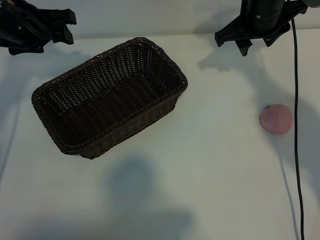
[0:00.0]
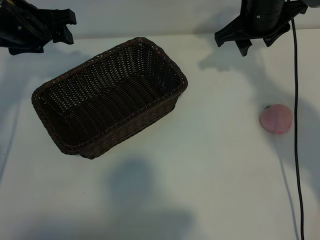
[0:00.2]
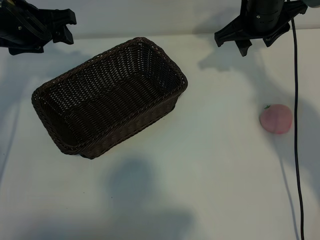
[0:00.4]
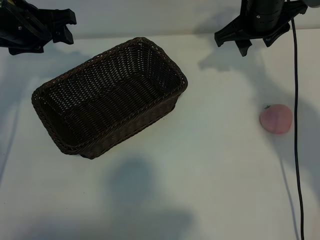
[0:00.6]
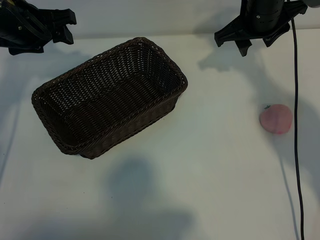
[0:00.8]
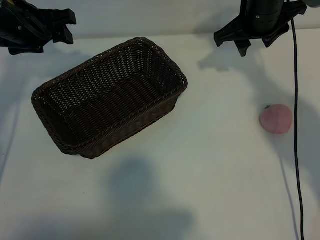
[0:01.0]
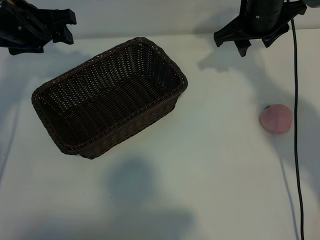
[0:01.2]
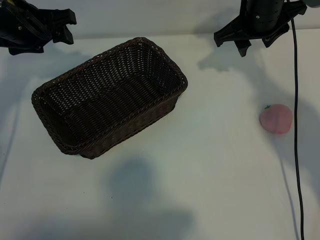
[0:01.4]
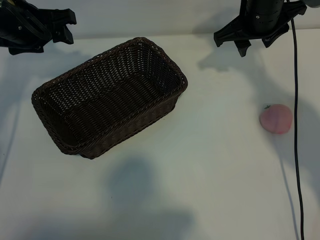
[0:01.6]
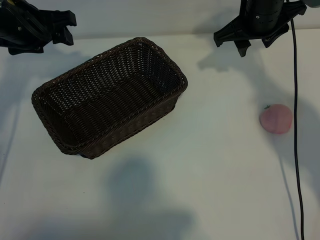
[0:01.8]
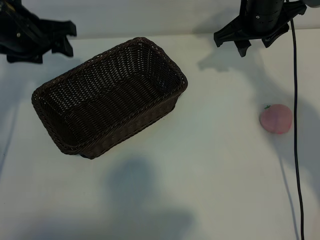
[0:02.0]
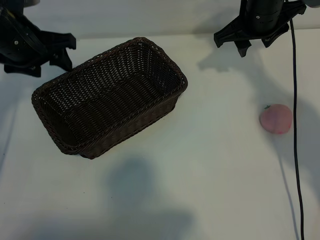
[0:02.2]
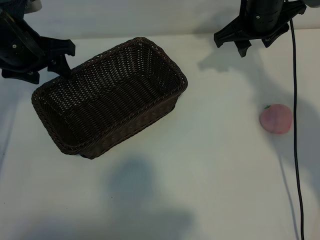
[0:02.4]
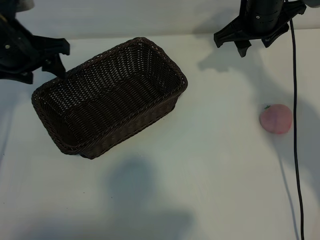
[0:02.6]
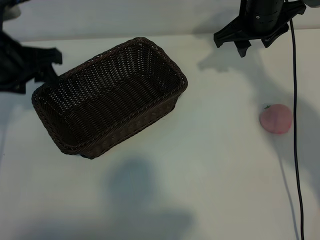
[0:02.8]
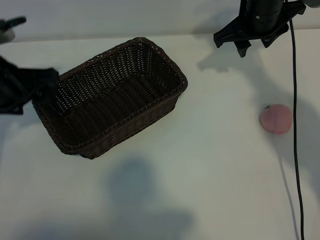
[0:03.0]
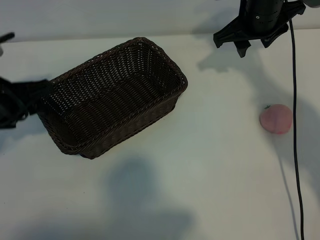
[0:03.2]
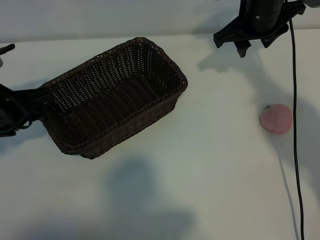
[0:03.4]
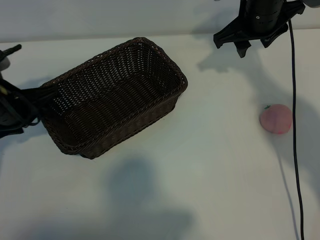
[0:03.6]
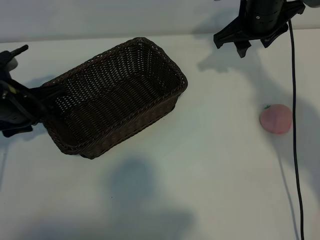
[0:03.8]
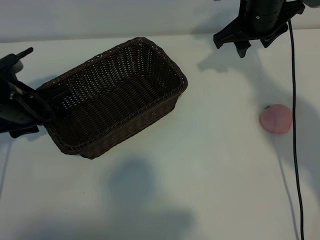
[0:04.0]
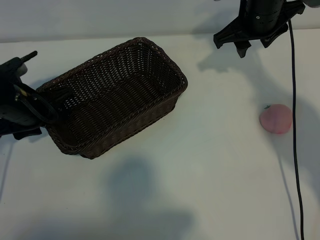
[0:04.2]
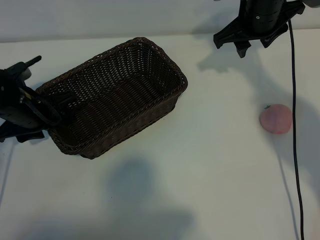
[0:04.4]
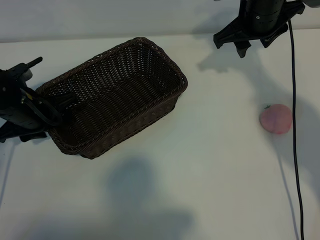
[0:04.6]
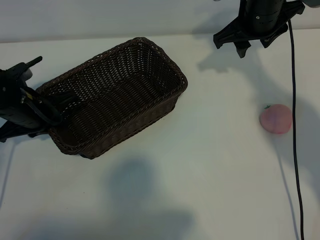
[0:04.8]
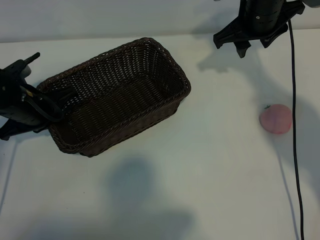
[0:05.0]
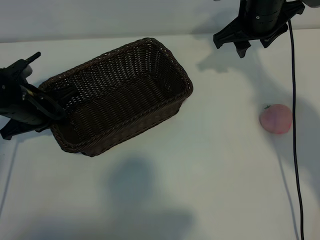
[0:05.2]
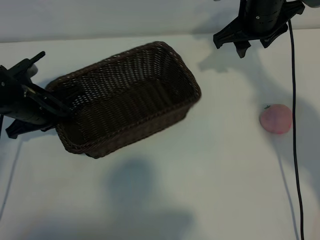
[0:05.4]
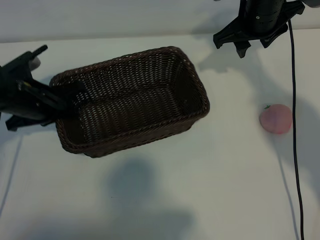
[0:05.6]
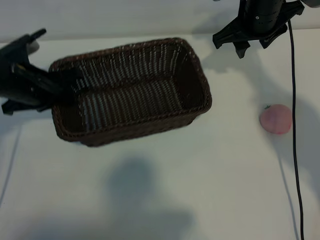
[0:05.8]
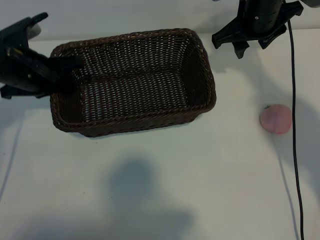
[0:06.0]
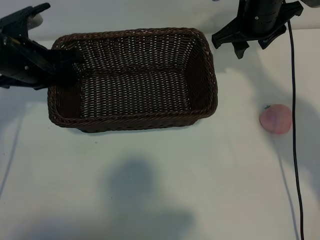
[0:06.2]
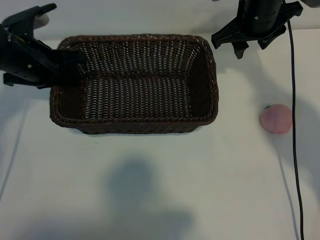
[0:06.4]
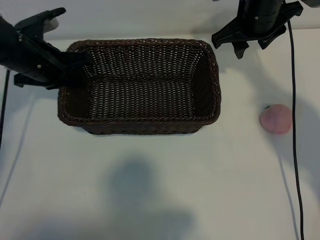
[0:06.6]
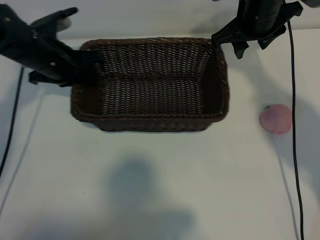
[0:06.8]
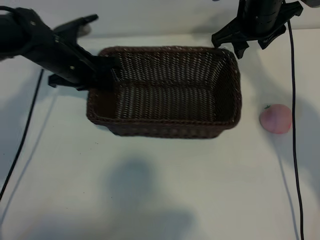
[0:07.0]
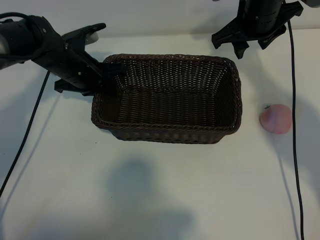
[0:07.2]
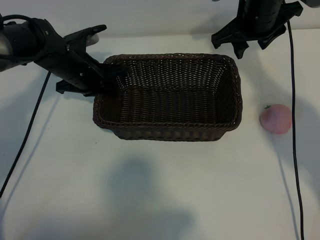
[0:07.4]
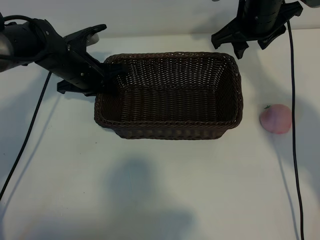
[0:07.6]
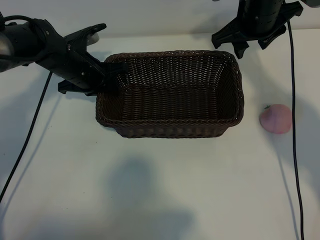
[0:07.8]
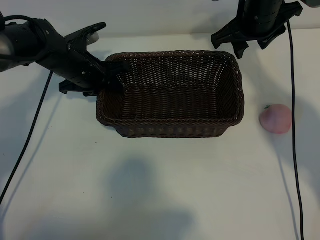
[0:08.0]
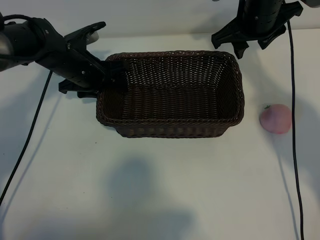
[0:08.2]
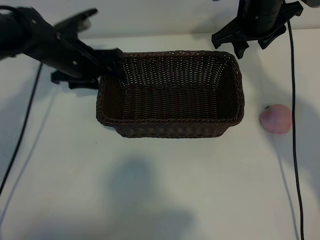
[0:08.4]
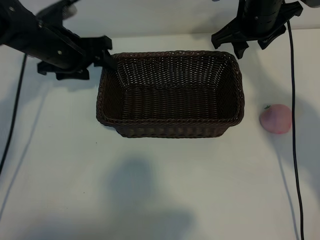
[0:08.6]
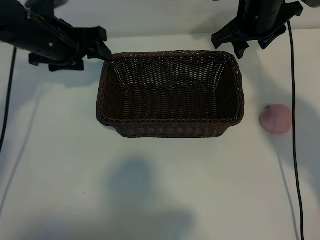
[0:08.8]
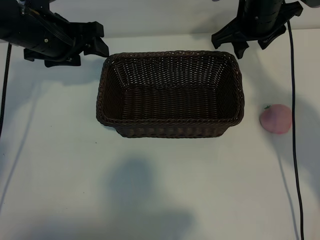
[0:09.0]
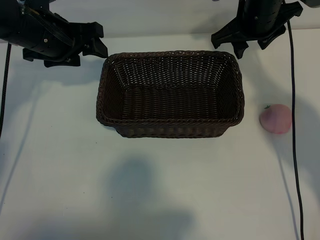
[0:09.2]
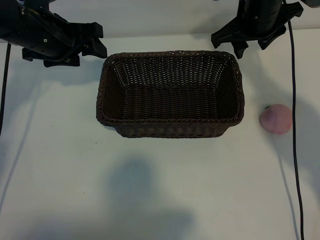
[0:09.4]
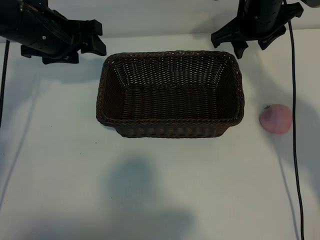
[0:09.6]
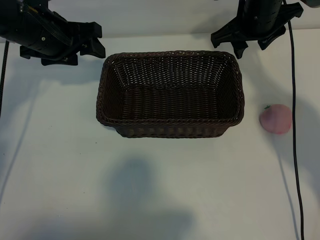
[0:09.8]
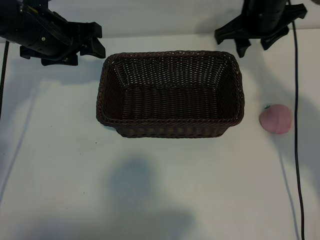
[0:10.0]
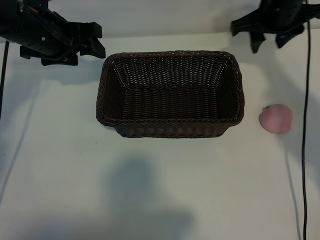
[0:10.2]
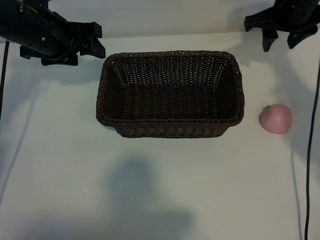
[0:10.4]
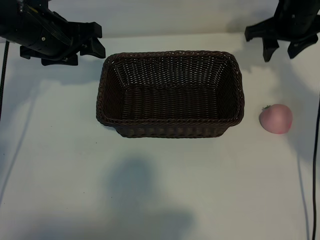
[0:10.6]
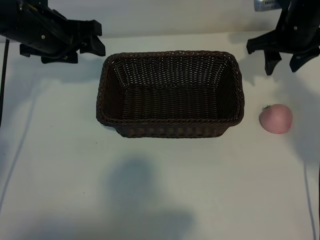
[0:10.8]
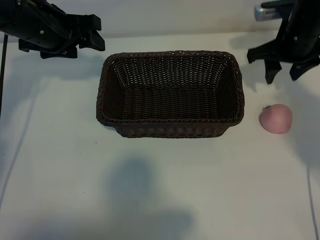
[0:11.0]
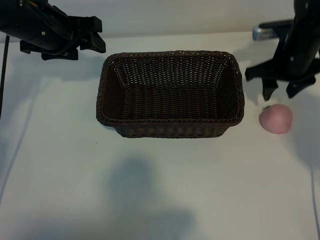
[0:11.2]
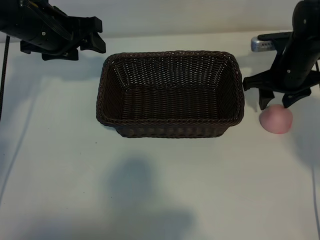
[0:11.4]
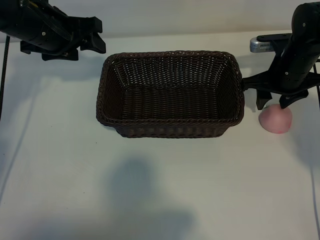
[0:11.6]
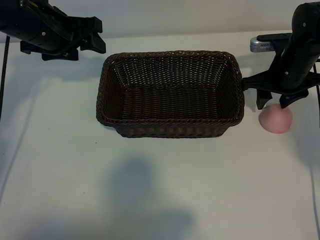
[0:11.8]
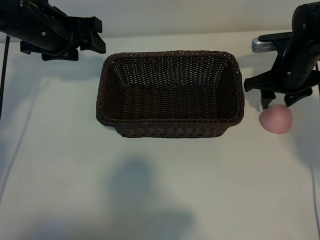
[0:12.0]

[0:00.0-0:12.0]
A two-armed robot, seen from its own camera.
Task of the whole recording: pick up the peach and put it into the basket.
Step, 0:01.8 to 0:05.0: Grasp the basket with left gripper.
Step, 0:05.4 to 0:07.8: Place the basket in the center of view with left gripper.

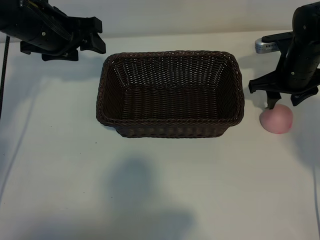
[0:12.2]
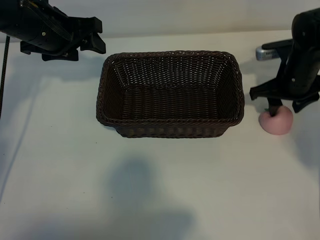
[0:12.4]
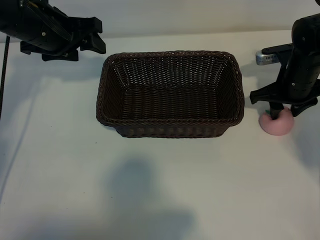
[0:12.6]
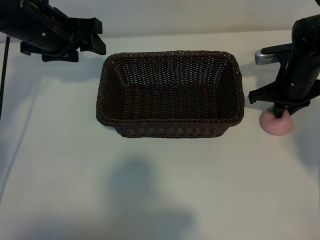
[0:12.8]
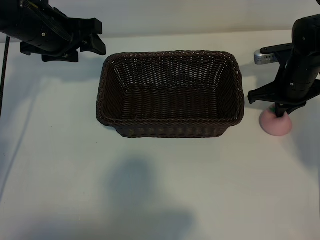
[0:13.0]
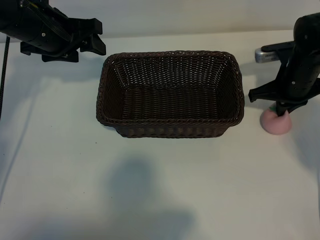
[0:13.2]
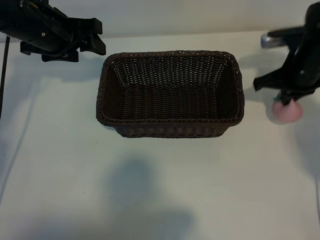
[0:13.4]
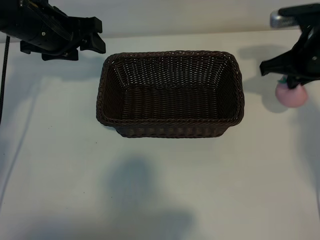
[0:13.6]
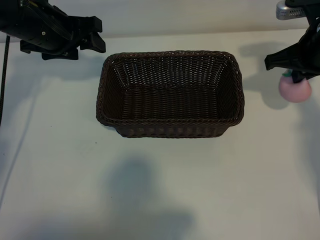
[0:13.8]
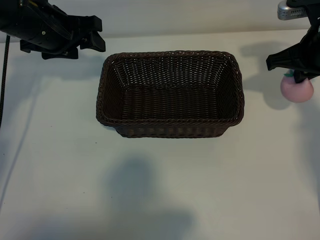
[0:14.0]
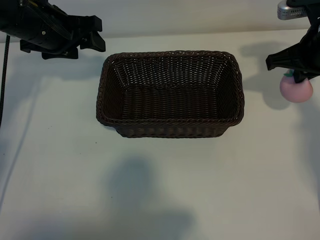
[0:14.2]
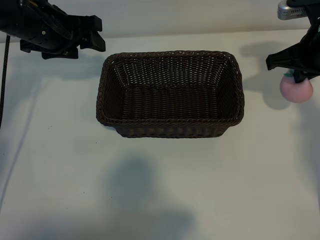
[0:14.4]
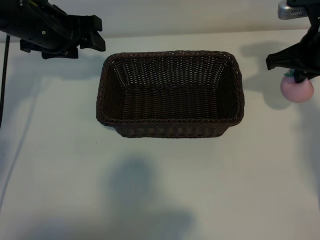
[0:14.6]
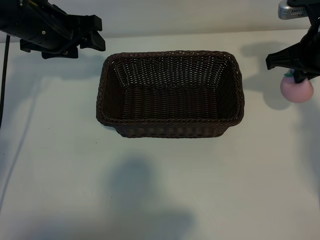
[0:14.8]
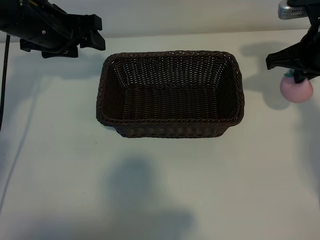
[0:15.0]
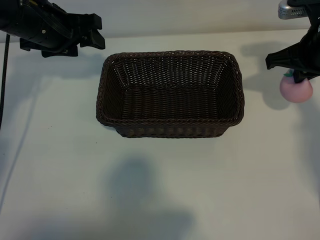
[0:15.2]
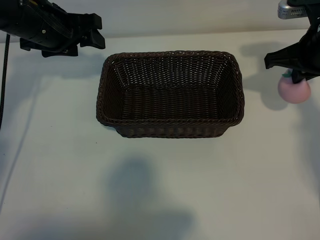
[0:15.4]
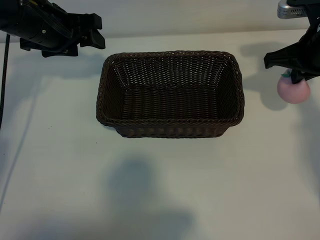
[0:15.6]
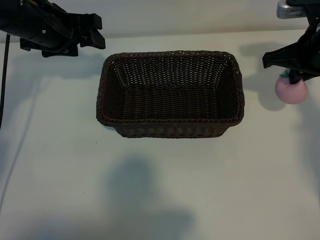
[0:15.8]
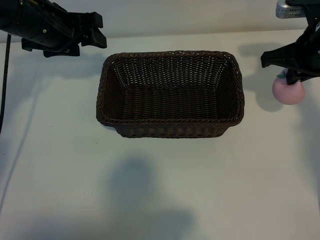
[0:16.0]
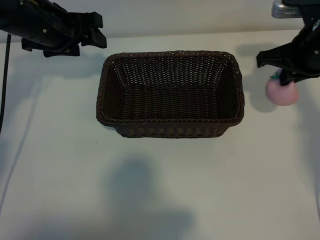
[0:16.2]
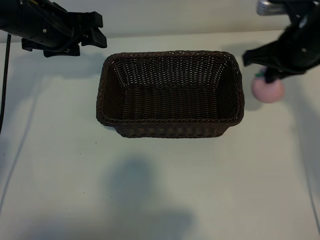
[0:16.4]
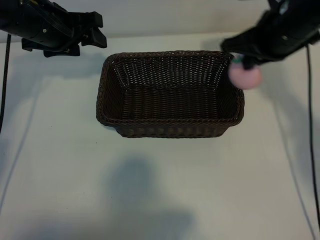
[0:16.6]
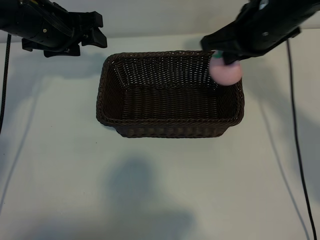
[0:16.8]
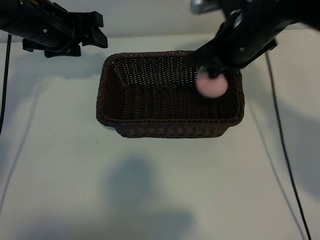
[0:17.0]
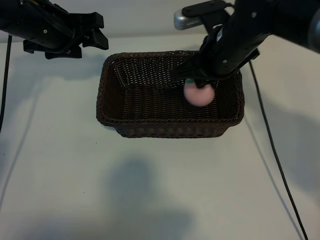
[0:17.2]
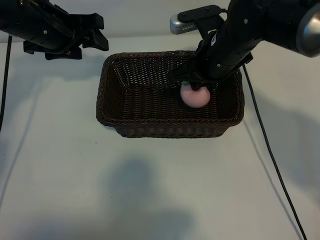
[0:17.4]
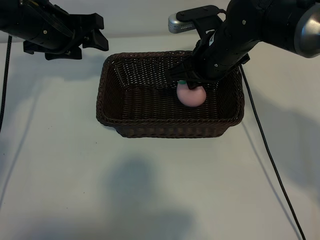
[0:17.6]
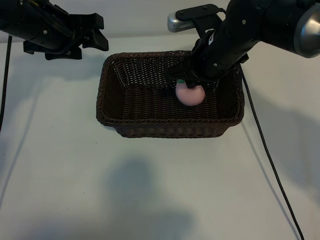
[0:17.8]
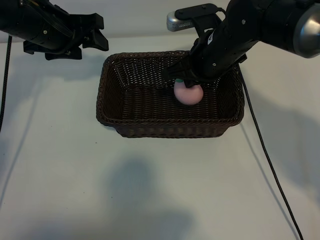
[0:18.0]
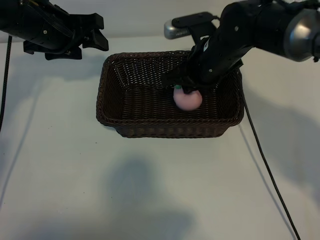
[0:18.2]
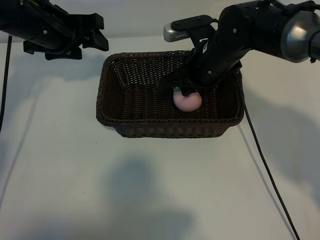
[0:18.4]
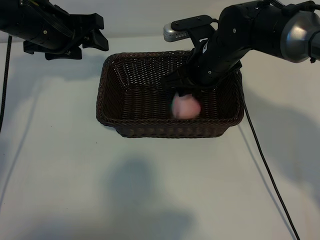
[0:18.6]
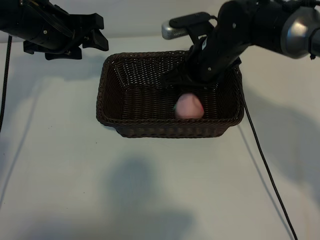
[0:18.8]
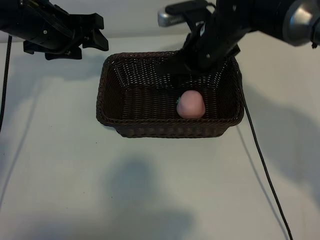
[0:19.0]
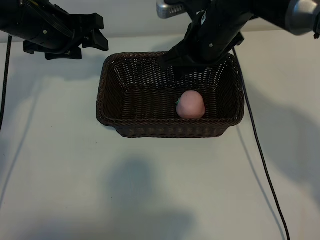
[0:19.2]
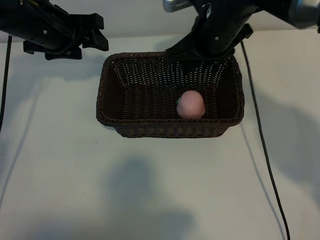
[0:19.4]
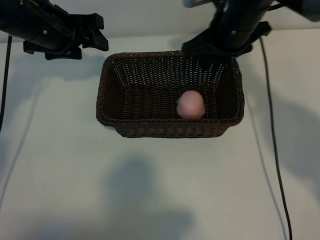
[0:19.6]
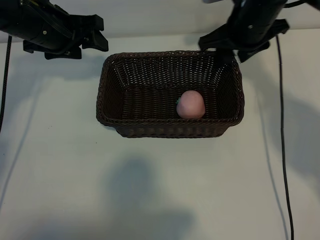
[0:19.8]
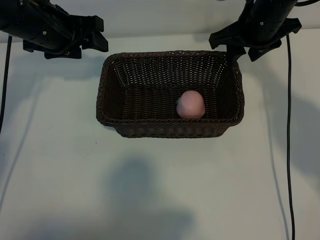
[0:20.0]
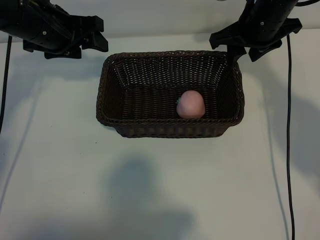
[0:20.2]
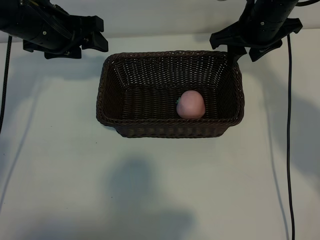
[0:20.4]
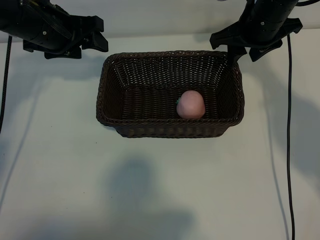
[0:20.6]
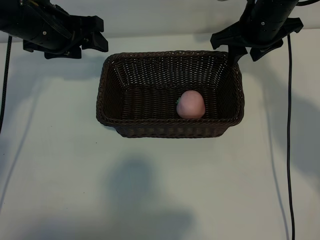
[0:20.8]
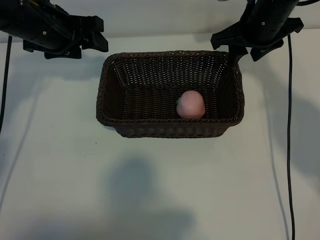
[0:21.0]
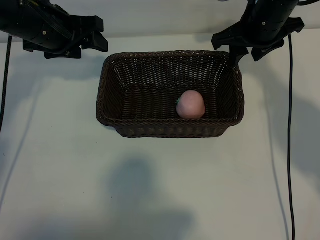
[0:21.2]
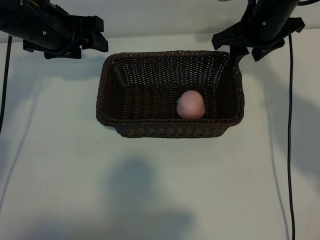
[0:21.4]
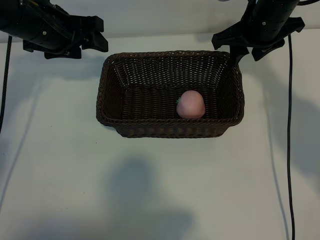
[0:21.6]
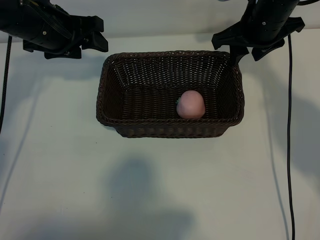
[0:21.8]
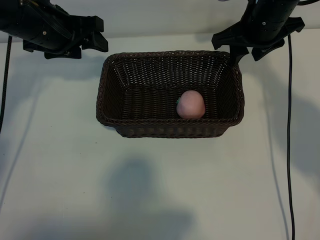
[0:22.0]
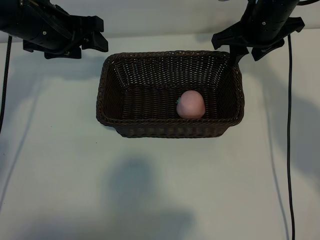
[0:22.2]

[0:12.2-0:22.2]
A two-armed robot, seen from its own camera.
Task of the whole recording: pick up the peach and put it into the basket.
Step, 0:13.4 to 0:18.8: Place the peach in the basket with right gripper.

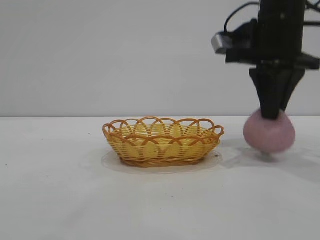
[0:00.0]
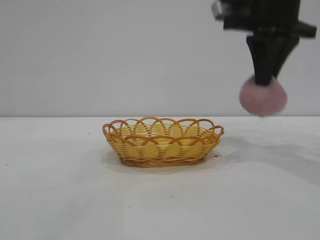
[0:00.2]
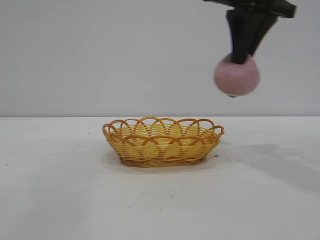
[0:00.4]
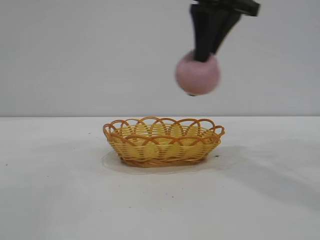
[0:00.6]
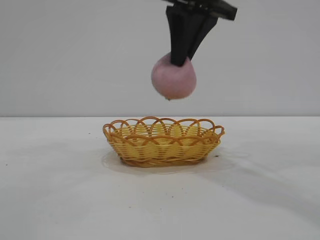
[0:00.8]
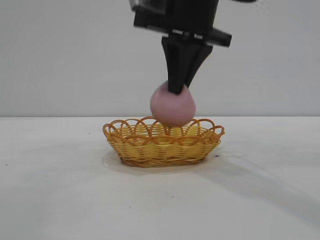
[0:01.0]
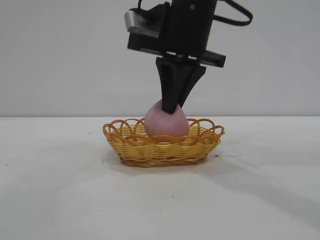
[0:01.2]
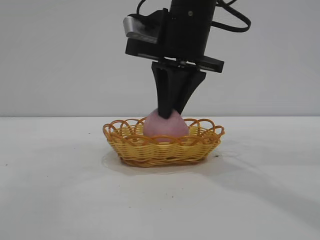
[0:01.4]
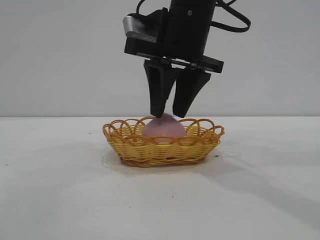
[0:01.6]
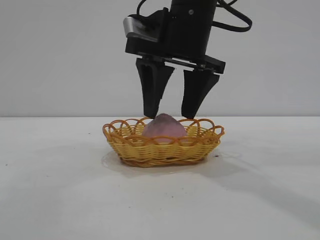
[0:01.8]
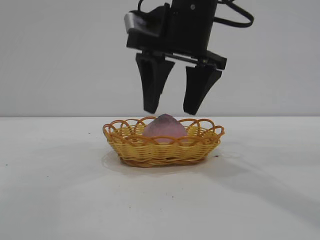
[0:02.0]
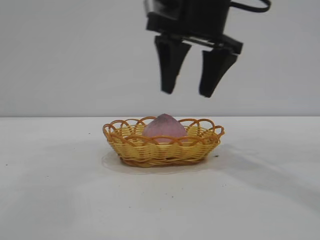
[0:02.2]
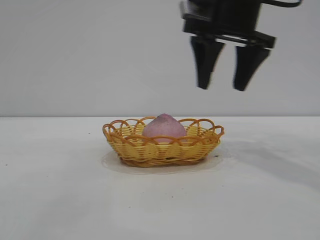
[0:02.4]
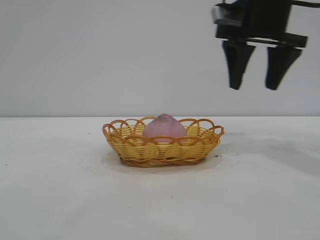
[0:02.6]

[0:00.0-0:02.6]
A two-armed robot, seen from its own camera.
Task of the whole recording: pick up the peach and put it into the basket.
Step, 0:00.4 to 0:02.2: place the peach into the basket.
